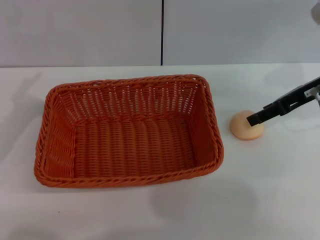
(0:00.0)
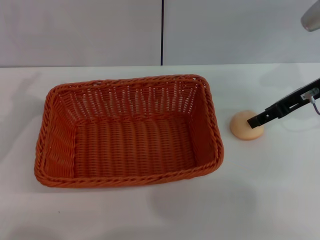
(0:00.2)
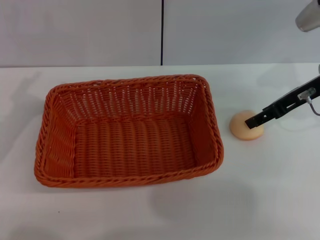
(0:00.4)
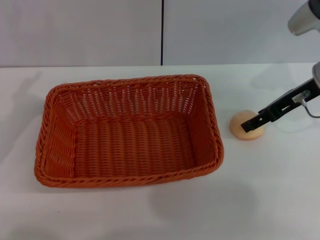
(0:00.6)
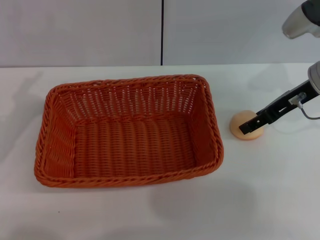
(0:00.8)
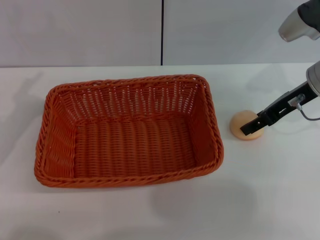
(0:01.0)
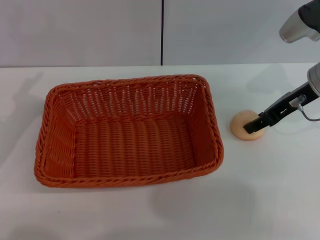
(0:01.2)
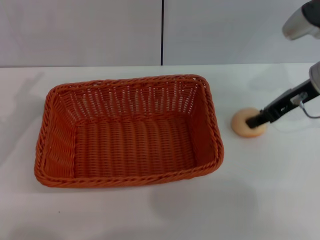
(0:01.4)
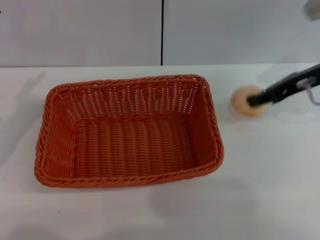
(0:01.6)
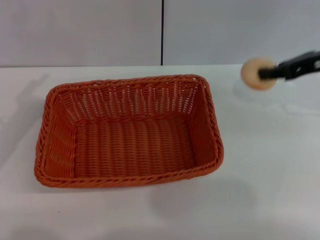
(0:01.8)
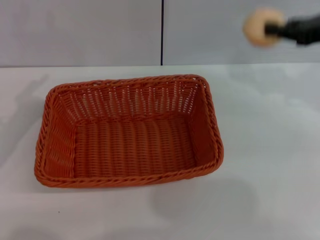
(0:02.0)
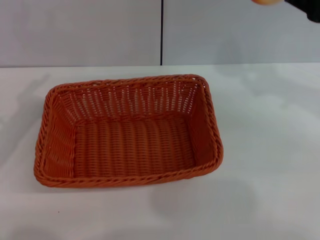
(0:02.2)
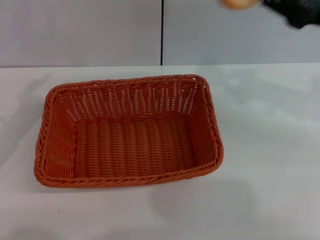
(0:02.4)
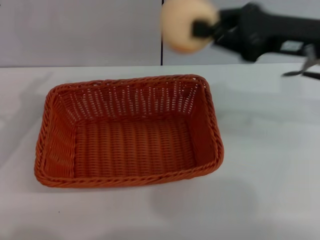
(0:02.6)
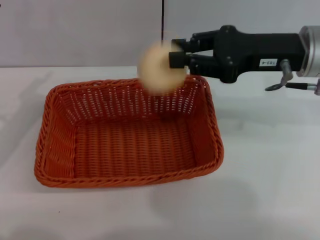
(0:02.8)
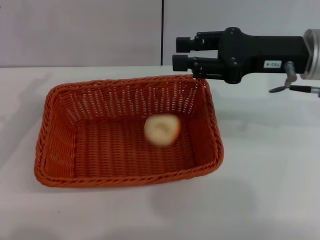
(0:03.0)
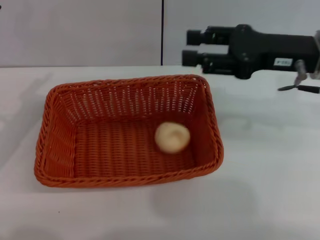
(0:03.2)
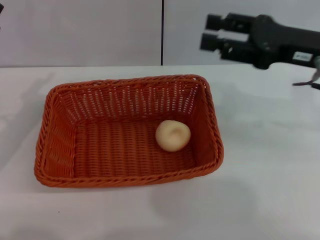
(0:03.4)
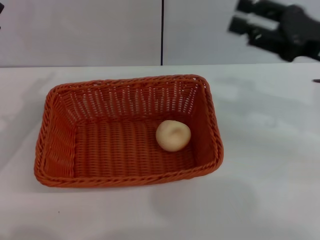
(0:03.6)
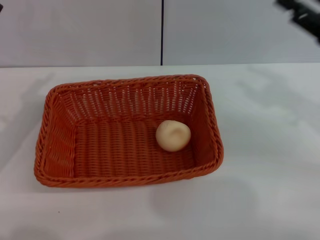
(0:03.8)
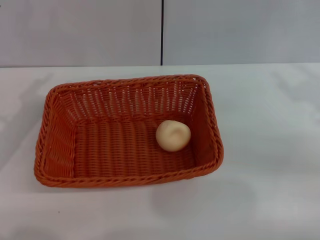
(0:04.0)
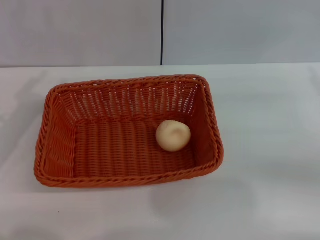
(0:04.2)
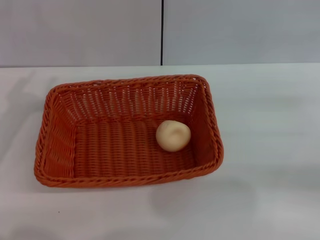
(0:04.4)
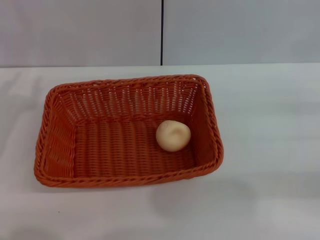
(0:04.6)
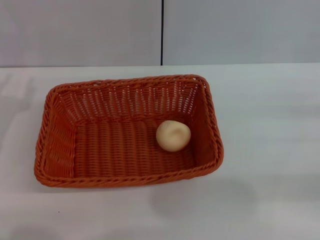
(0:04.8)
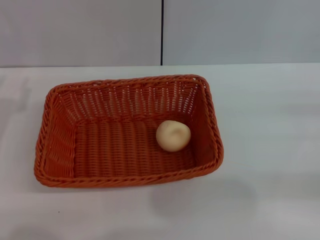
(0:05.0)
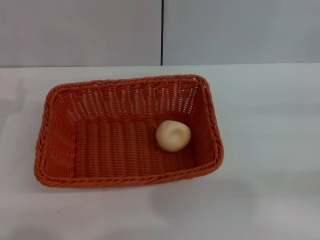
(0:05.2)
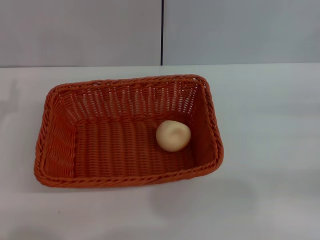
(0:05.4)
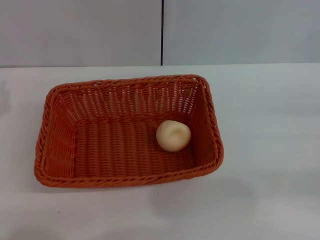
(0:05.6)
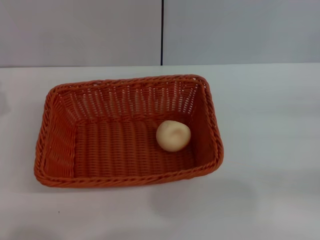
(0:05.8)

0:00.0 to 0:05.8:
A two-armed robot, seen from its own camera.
Step, 0:02.0 to 0:03.4: Place the egg yolk pastry into the basket with the right gripper.
0:00.0 to 0:01.4: The right gripper closes.
0:01.4 to 0:02.8: The right gripper shifts by some 5 cm, and closes its fingers.
0:02.8 to 0:04.4: The right gripper goes approximately 20 cm to the right, backward and downward, and opens its fingers.

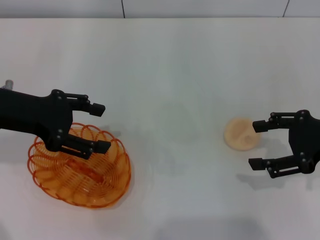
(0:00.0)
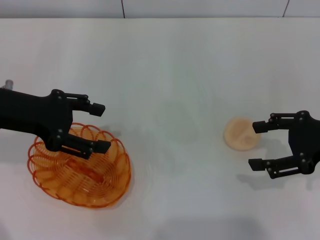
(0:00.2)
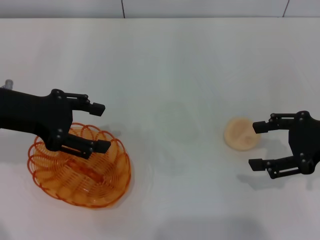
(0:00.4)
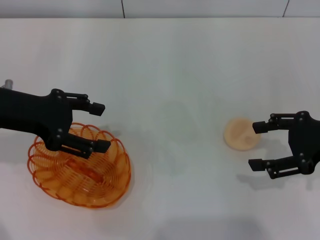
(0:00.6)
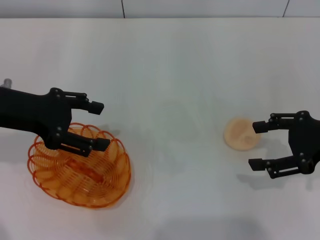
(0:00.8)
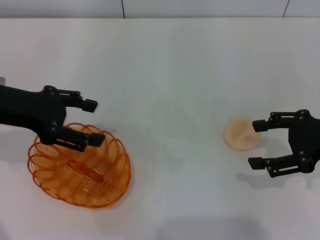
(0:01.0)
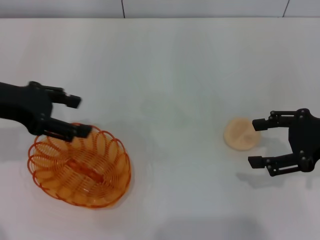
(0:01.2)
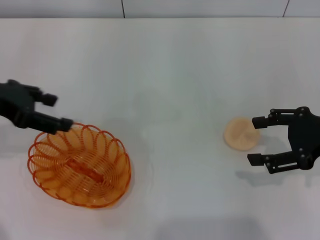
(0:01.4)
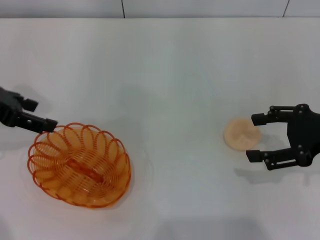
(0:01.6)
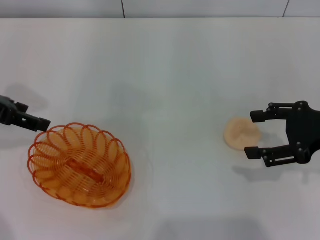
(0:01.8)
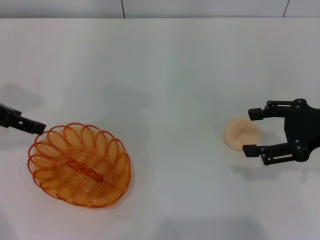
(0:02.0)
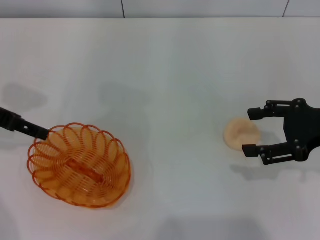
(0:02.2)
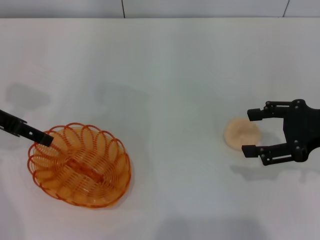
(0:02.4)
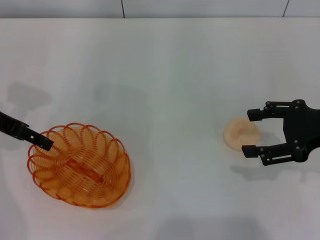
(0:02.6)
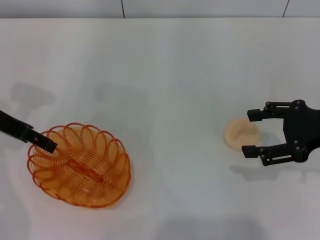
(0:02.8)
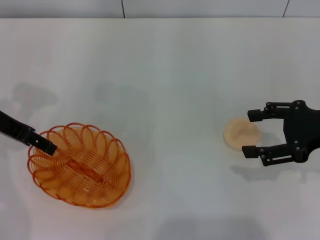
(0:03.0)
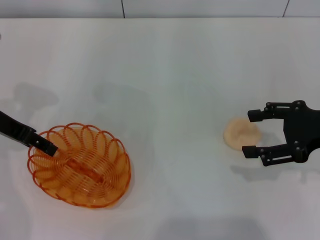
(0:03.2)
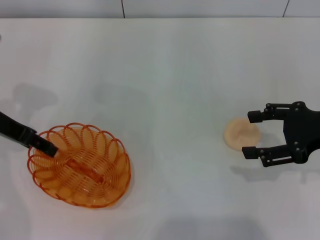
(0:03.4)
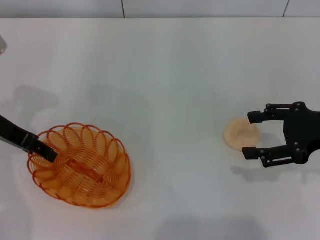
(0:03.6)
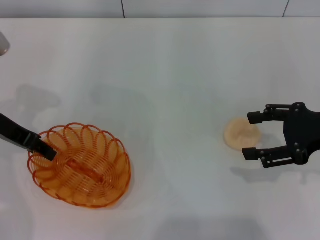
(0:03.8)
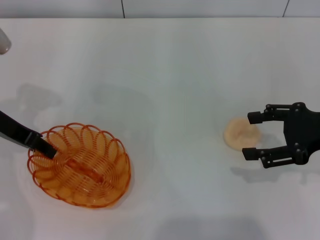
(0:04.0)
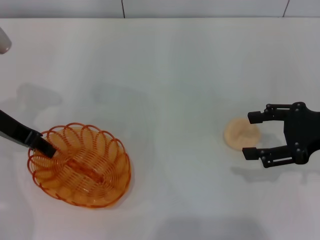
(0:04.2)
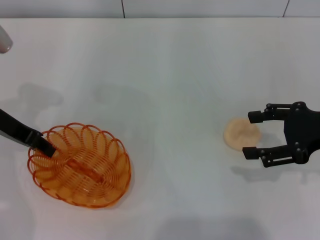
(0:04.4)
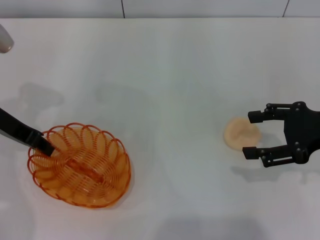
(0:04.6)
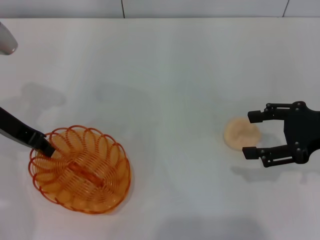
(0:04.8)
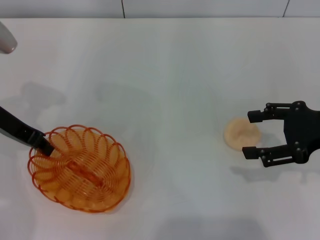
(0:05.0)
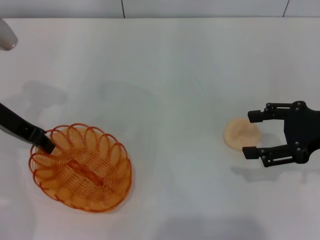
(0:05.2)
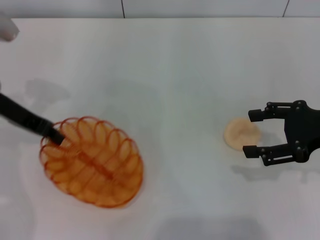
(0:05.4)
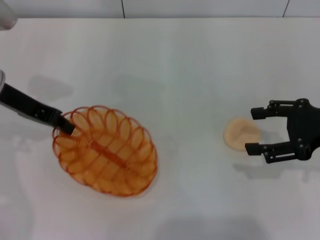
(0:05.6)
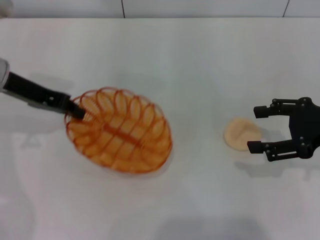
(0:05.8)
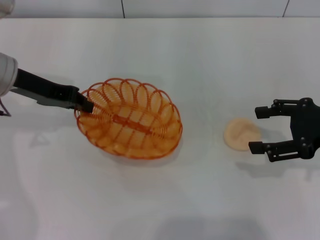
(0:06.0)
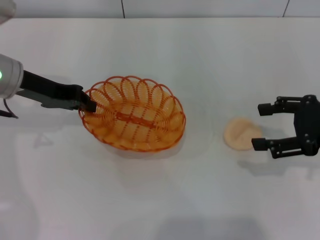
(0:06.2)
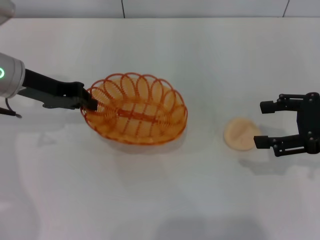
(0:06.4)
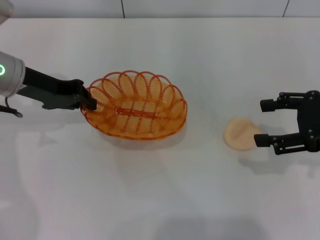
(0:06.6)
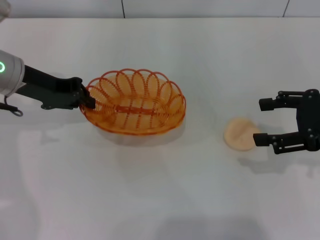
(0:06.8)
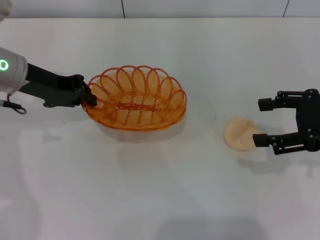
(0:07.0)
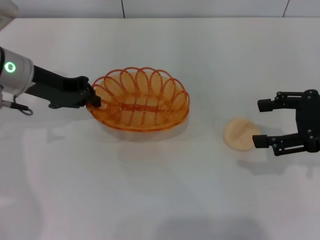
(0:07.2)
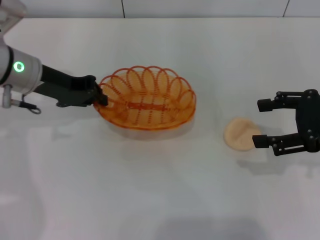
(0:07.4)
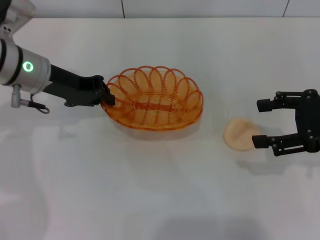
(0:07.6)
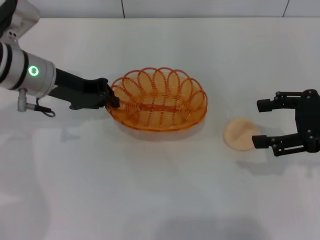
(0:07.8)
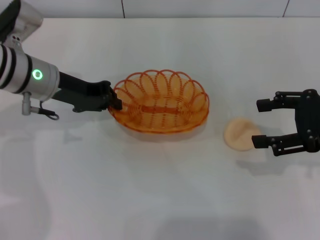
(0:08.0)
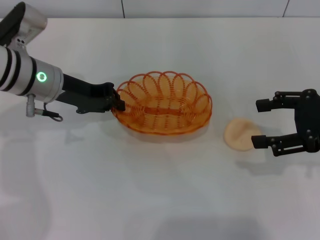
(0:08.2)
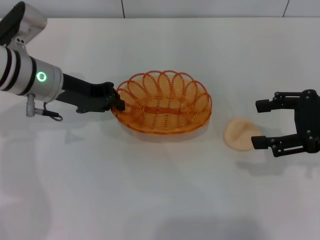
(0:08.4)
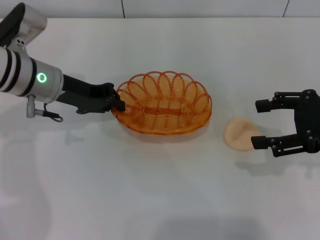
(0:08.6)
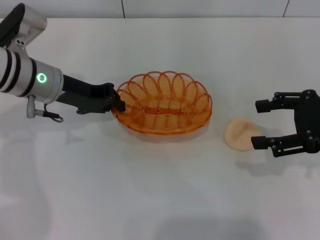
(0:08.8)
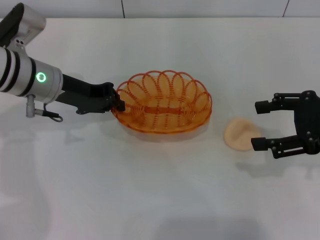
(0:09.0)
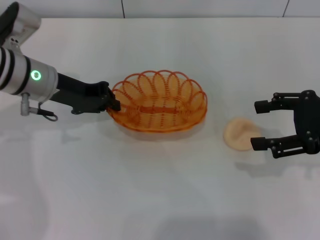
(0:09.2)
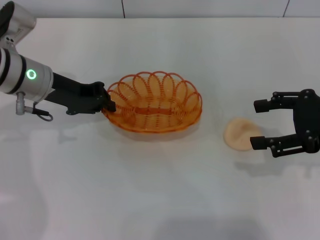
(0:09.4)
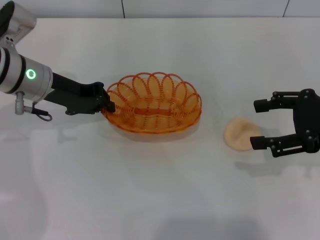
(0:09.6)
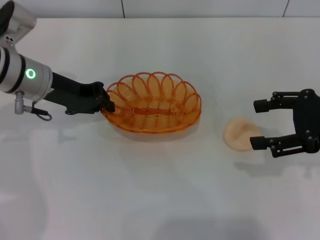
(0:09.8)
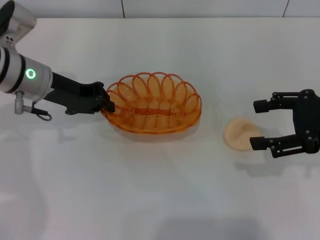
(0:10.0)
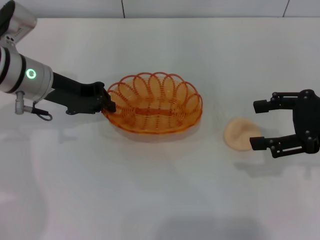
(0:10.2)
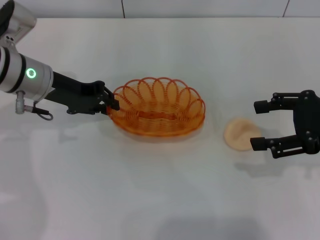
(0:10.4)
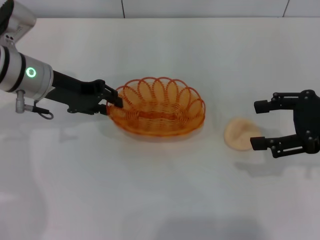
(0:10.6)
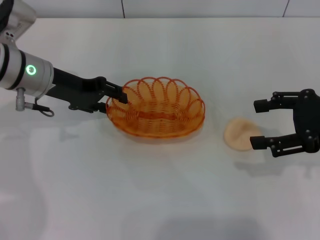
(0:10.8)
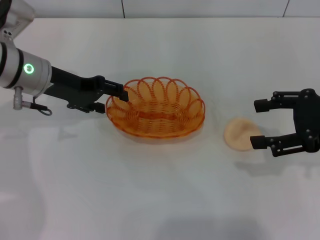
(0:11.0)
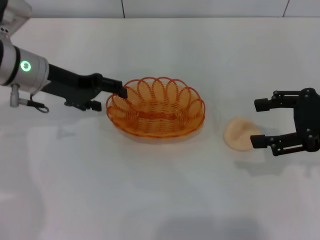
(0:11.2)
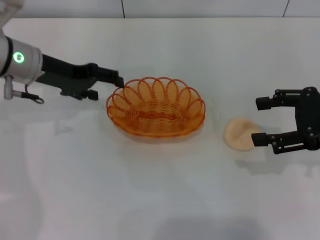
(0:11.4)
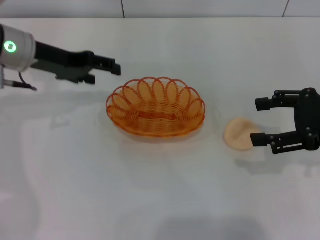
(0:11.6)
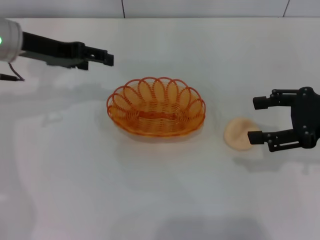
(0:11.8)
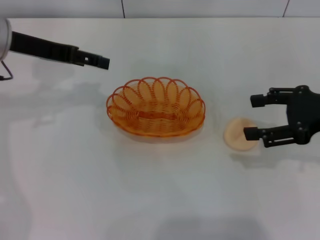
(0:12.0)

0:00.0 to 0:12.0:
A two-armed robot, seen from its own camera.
Step, 0:00.0 to 0:05.6: Pick up the basket with the left gripper.
Step, 0:05.8 to 0:11.6: Place the basket in the center of view with the left gripper.
0:00.0 to 0:01.6: The left gripper moves approximately 5 cm.
0:03.0 to 0:04.4: The left gripper closes up.
0:06.0 to 0:07.6: There are only small adjustments of the grippers.
0:07.6 to 0:09.0: The grippers move only a little.
0:09.0 to 0:10.4: Both grippers stay about where they are.
0:10.4 to 0:12.0: The left gripper travels upward by about 5 cm, and opens up.

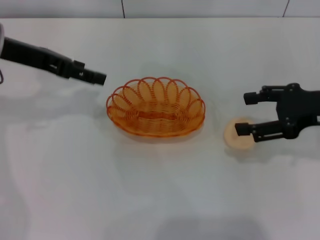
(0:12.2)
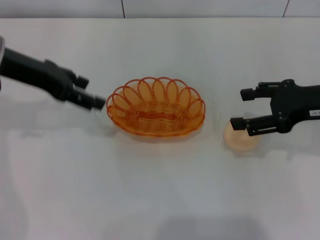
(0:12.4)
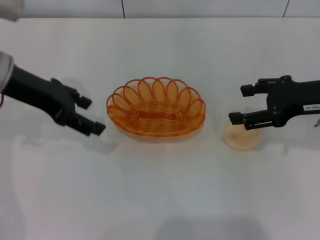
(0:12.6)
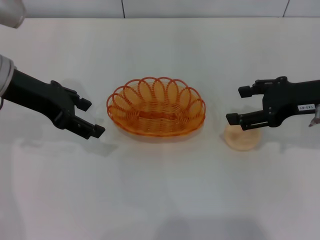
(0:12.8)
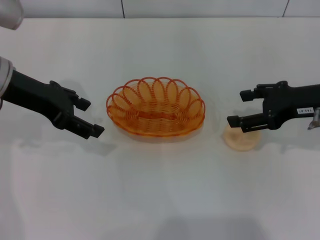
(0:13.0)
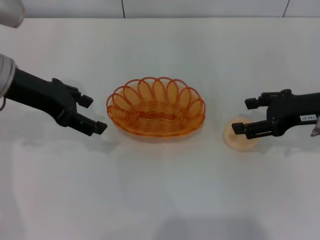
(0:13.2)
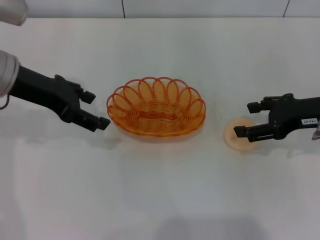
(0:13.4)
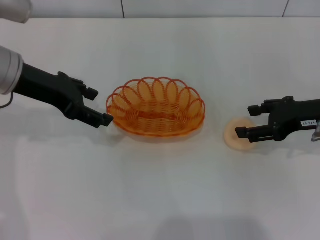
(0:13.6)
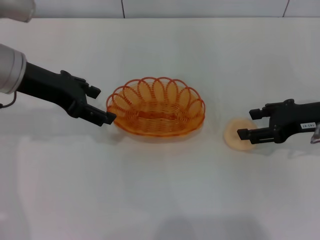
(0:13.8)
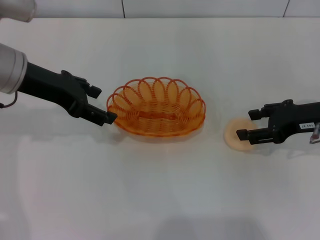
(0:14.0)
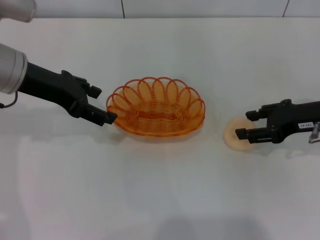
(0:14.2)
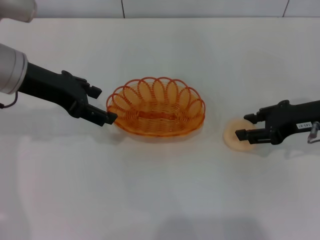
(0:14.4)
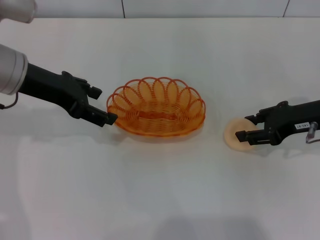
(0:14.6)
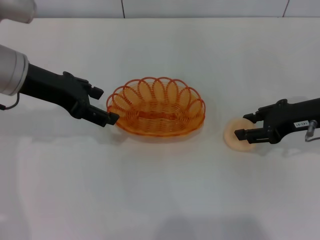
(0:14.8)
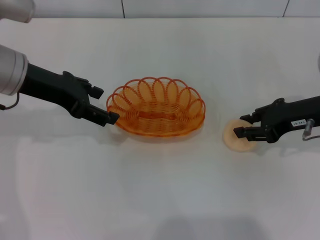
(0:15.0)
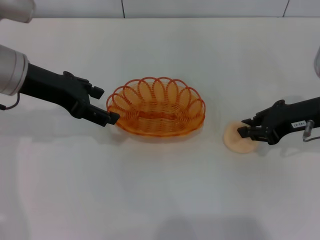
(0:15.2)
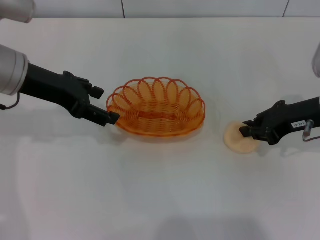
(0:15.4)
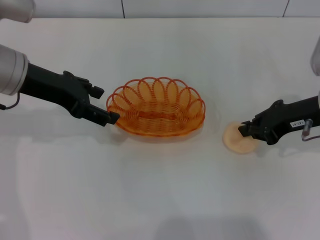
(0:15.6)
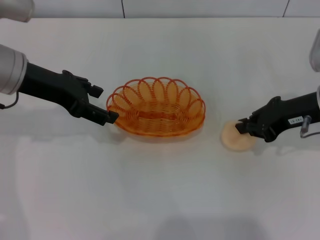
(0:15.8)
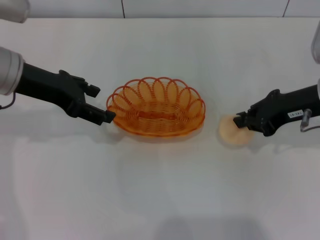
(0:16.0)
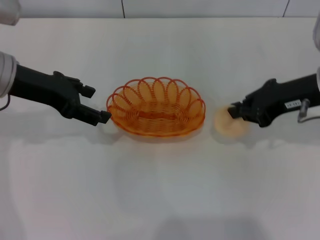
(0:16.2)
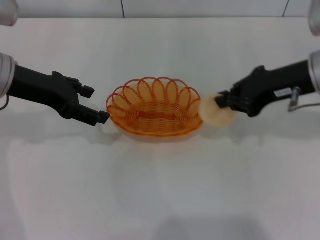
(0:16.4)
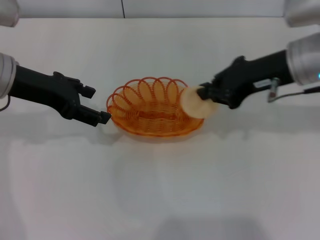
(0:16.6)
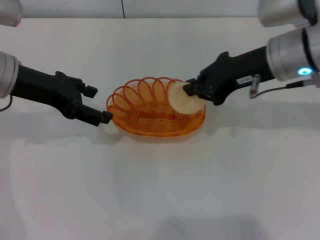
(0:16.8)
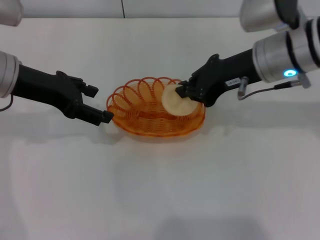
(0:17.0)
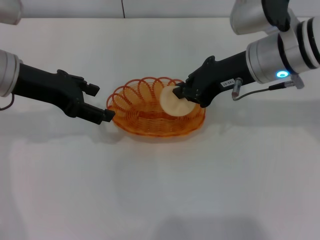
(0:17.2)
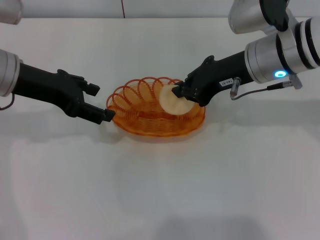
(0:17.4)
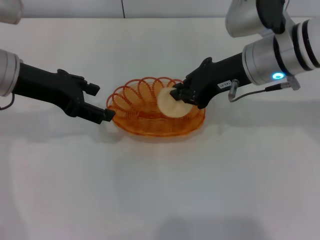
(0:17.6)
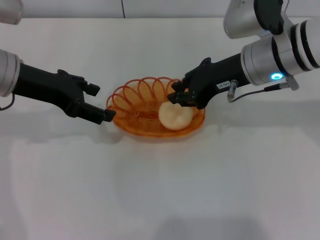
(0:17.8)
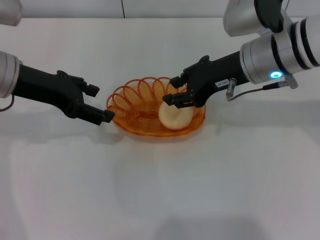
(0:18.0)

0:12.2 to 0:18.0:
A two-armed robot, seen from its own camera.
Step, 0:12.2 to 0:16.2: Pick up the egg yolk pastry with the right gripper.
0:13.6 to 0:15.0: The right gripper closes.
0:15.0 to 0:16.6: The right gripper travels upward and to the left by approximately 10 cm, and closes its fingers.
0:16.6 to 0:18.0: The right gripper moves to the left, approximately 5 cm.
